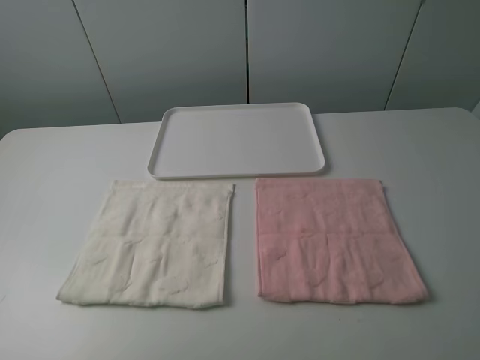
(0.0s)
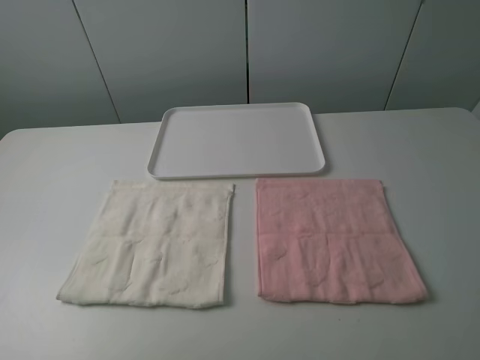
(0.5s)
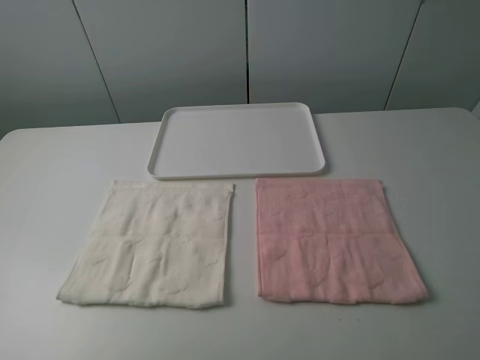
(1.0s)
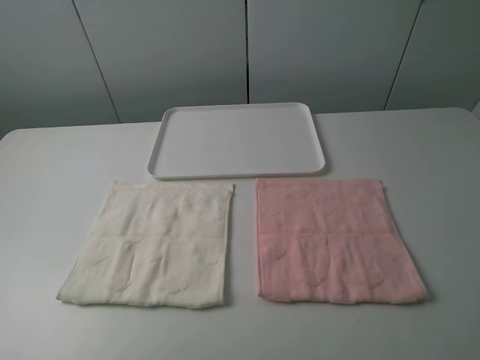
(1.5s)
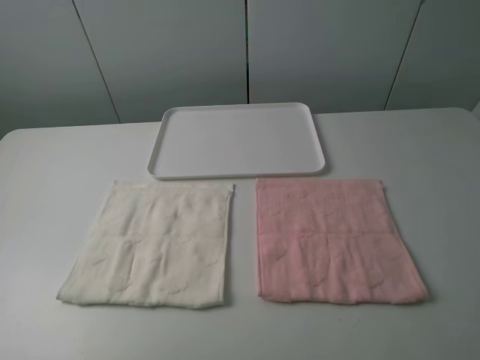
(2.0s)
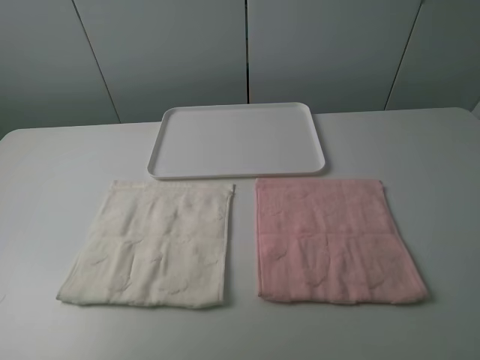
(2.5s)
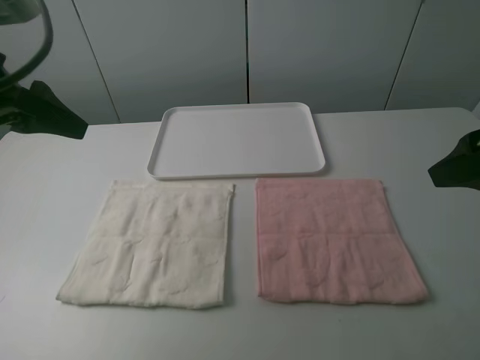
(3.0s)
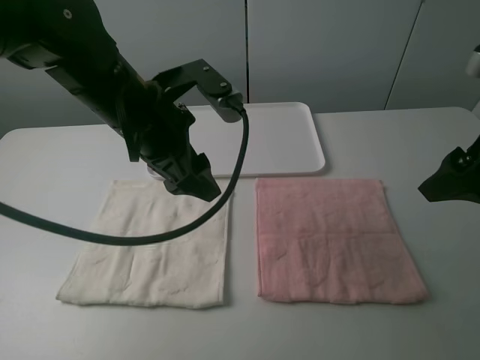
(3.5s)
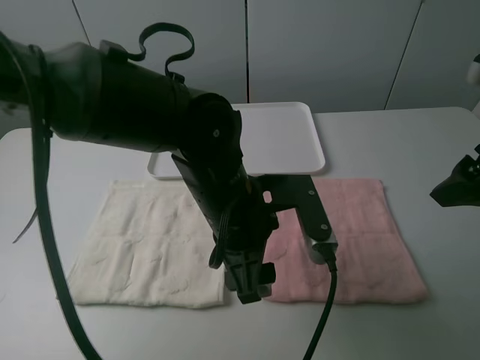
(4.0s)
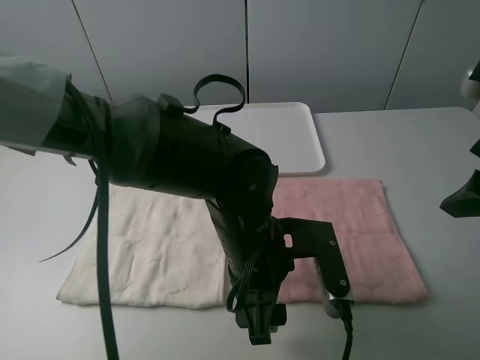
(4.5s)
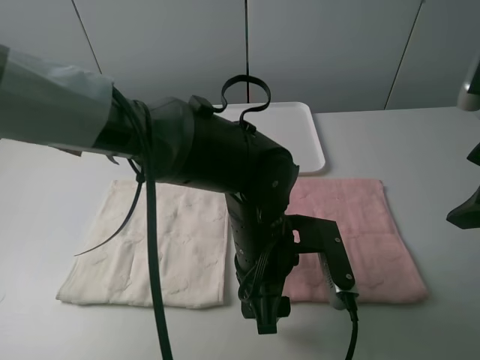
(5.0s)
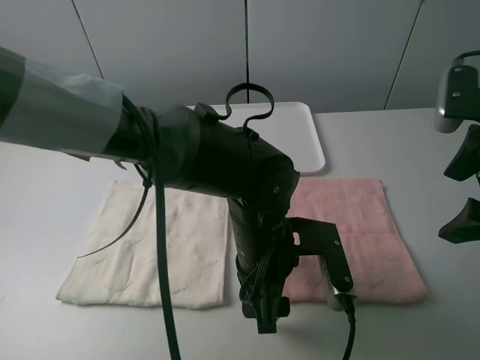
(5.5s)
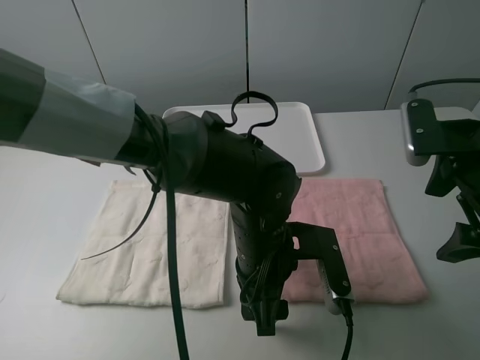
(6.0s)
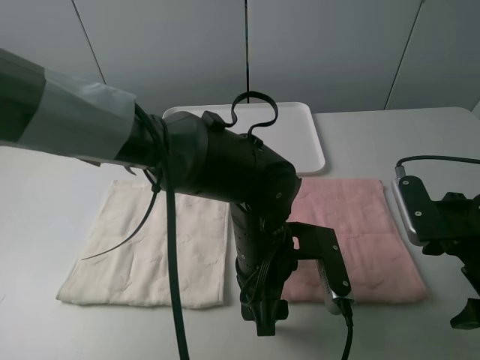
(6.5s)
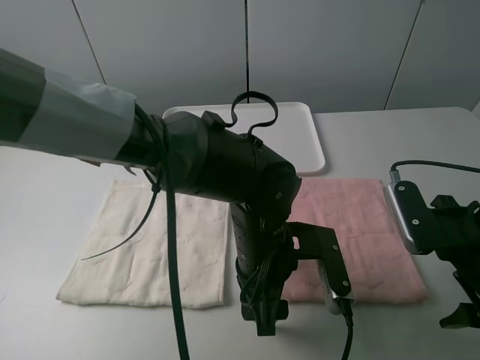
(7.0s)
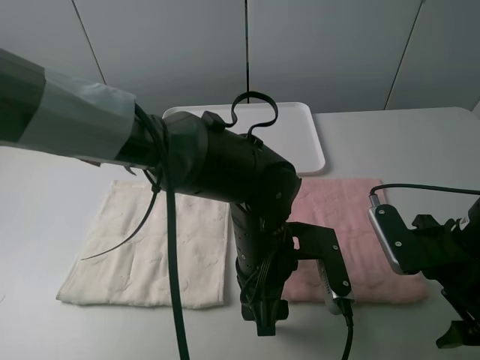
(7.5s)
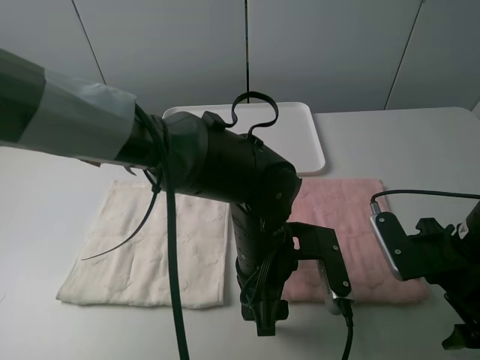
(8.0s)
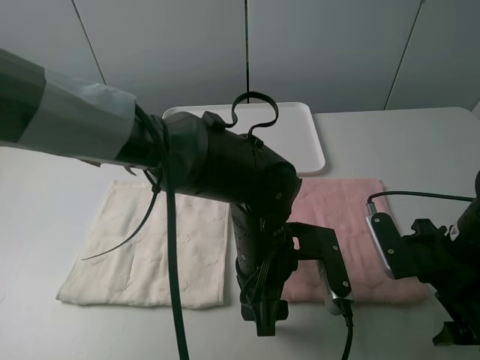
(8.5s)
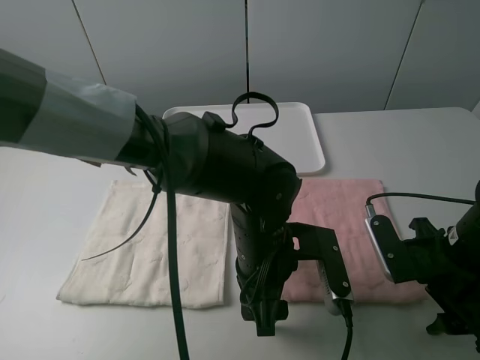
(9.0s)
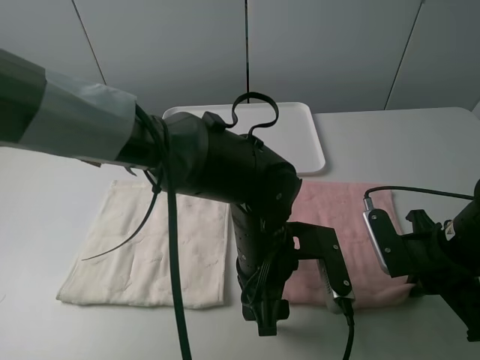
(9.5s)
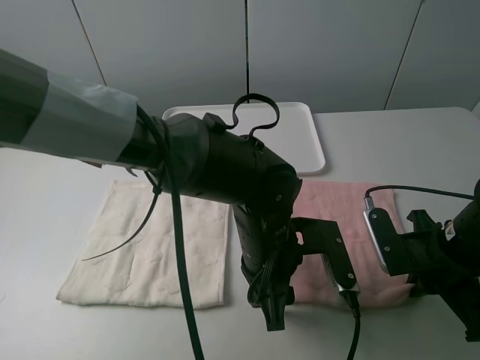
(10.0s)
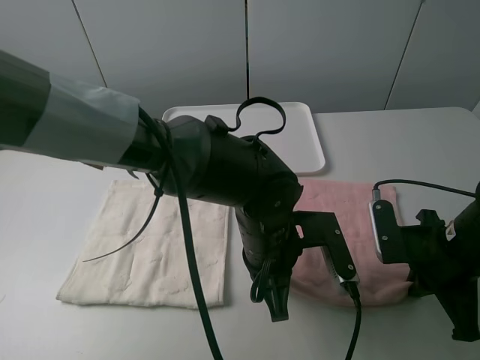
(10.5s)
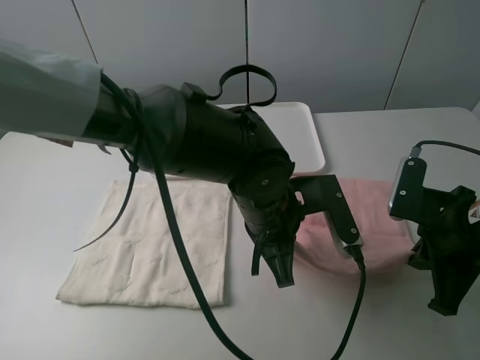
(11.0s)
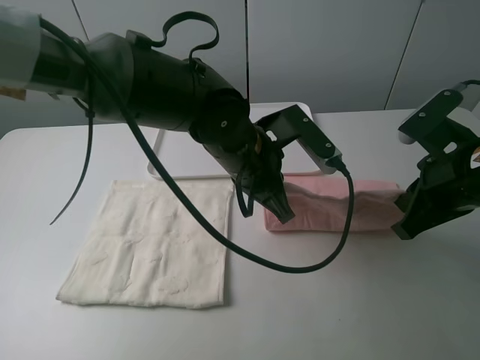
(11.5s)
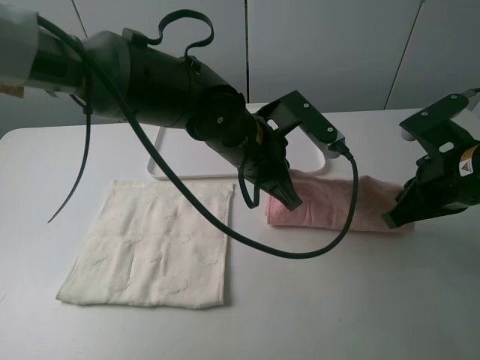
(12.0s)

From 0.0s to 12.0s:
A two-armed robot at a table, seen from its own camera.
Task of the whole recording: fold one of the towels by two grippers and place it on the tray,then fold another towel by two grippers and place it on the folded towel.
Step, from 0.0s to 10.5s: Grasp the pink towel with the left gripper.
From 0.0s to 2.0s: Both grippers stay put.
From 2.0s to 4.0s: The right gripper travels forward by some 20 cm. The left gripper shifts some 40 cm to the right, forward and downward.
From 4.0s to 6.0s: The left gripper moves roughly 5 cm. Meanwhile the right gripper is displaced downward by approximately 5 cm.
From 6.0s to 8.0s: The right gripper is displaced downward by roughly 10 cm.
From 8.0s to 10.0s: The right gripper closes its fingers, while the left gripper closes up.
From 10.0s to 12.0s: The left gripper heads forward and upward, covering about 10 cm, and closes up. Meanwhile the right gripper travels upward by some 5 cm.

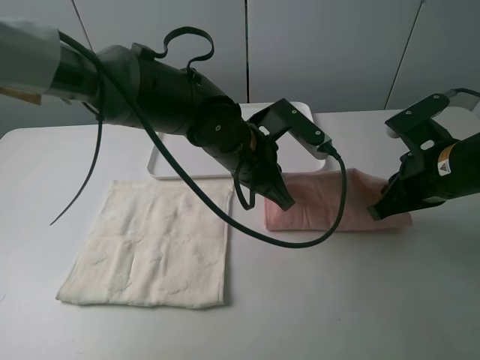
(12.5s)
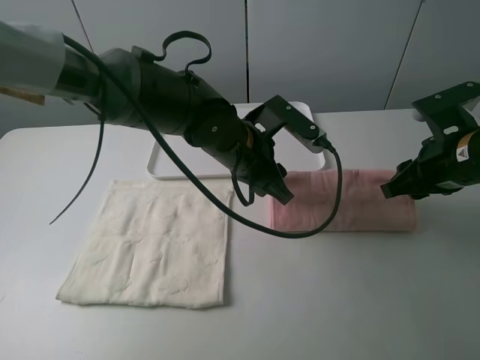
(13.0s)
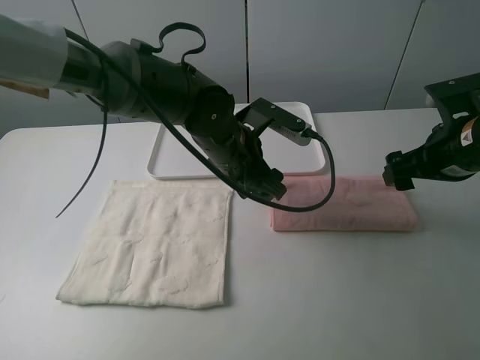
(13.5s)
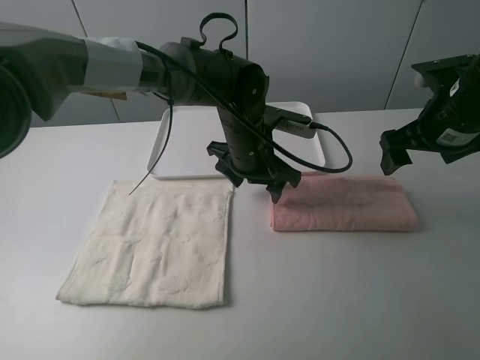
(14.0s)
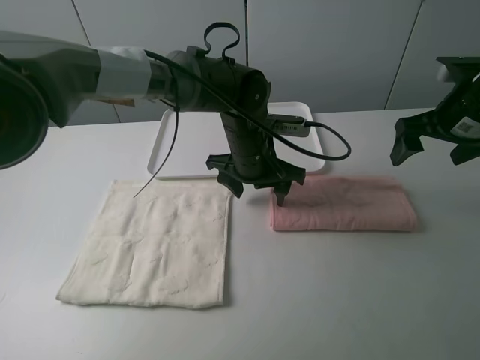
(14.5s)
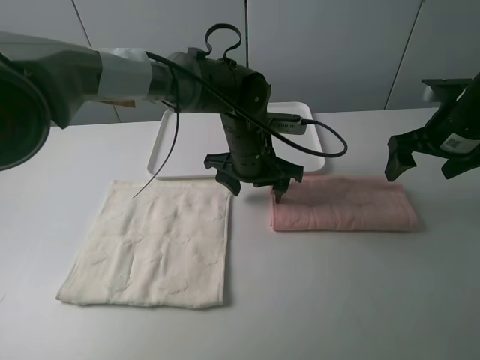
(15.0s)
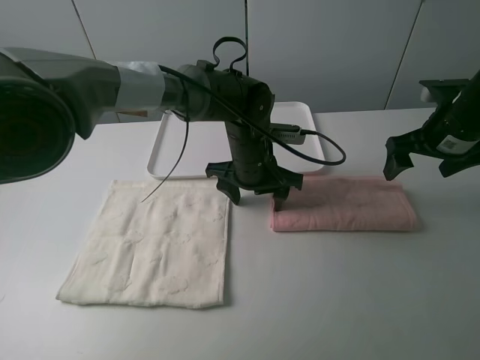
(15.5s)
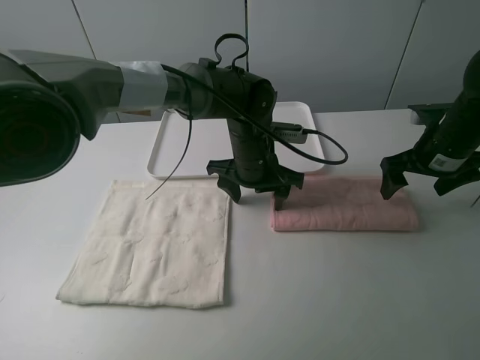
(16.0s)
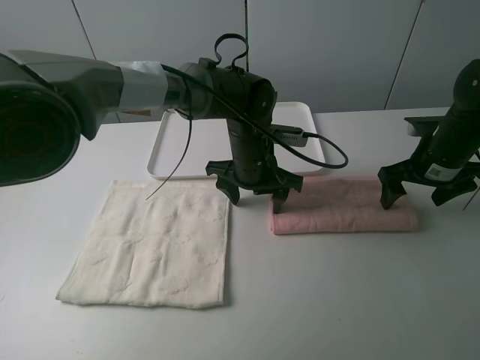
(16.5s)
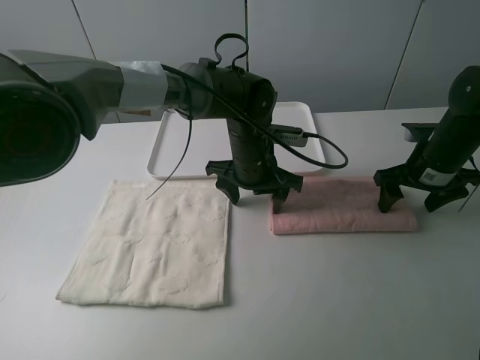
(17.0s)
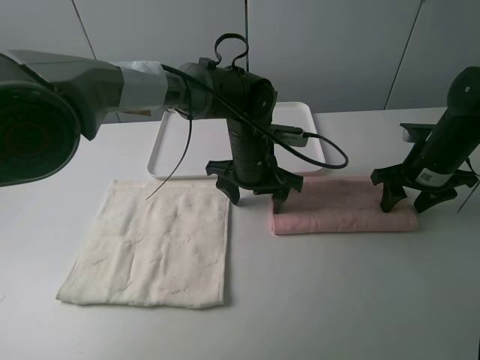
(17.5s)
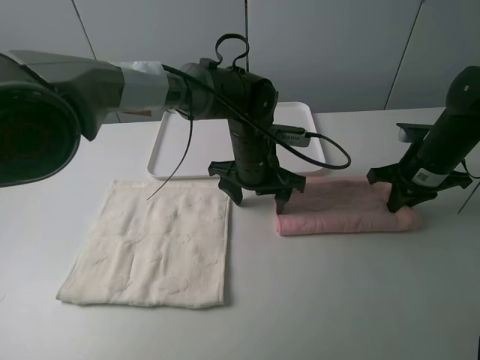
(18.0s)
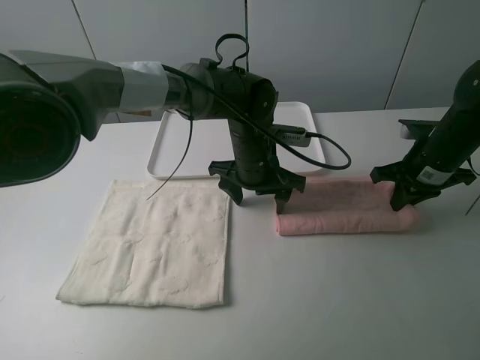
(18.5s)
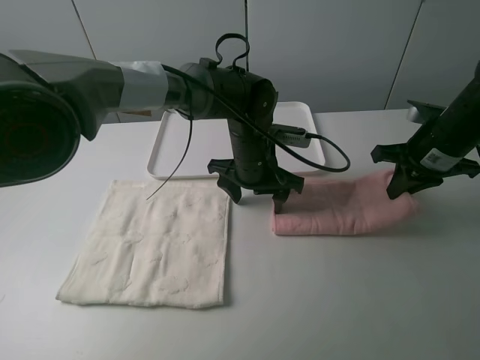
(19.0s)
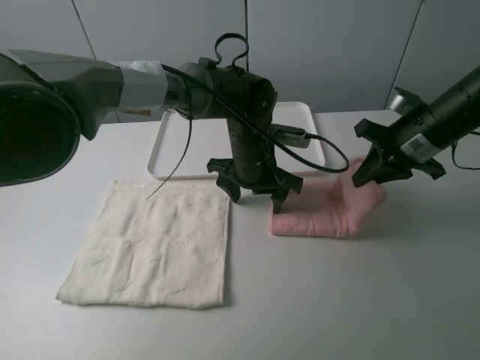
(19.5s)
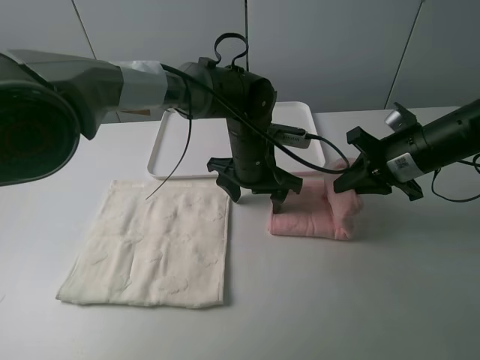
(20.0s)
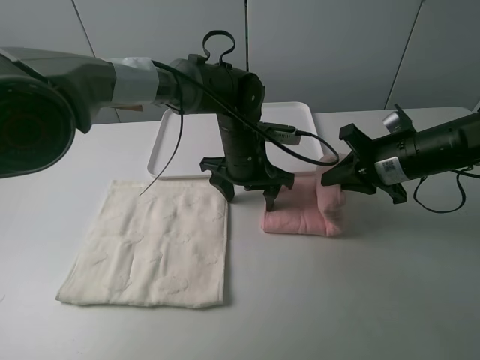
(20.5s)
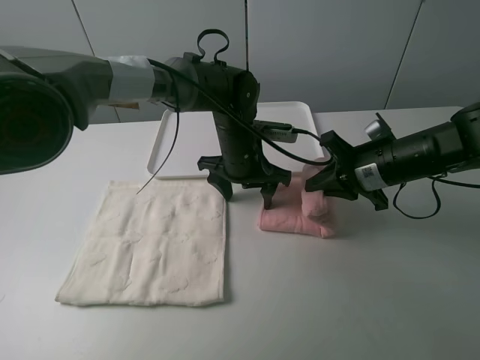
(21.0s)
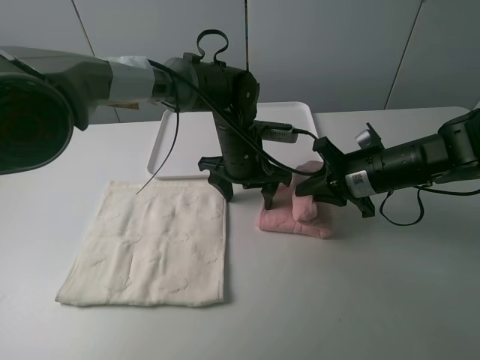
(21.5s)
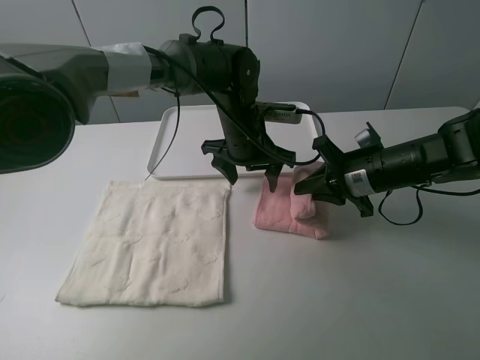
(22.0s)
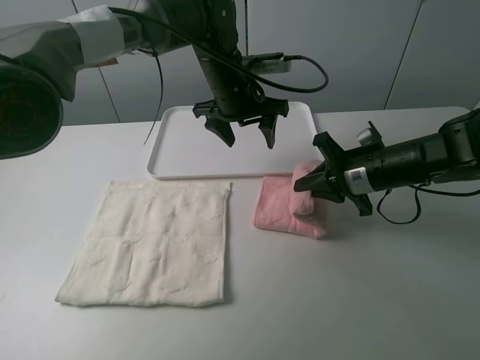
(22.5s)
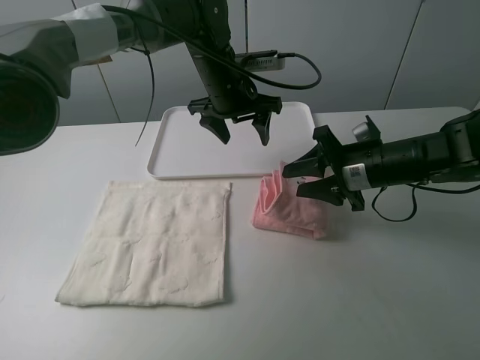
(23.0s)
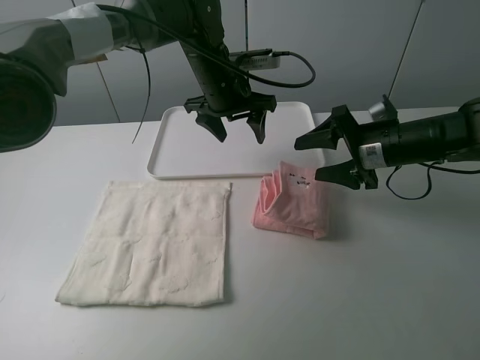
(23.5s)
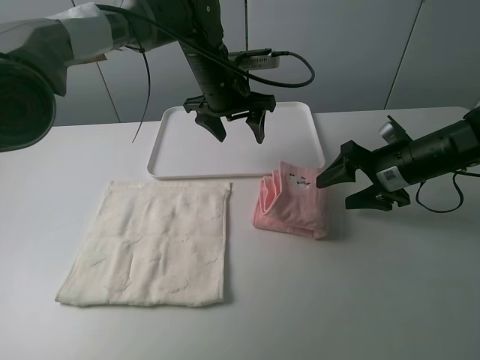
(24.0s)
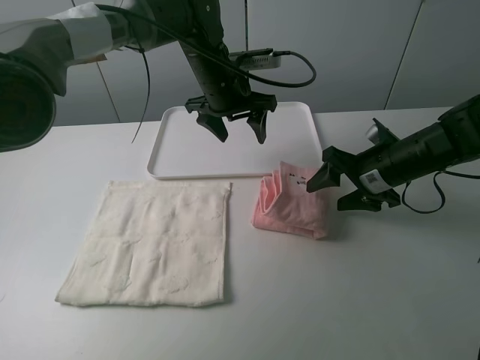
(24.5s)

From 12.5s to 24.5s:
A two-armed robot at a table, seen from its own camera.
Task of the whole recording: fold one of the towels by two grippers and place it on the tray,then fold another towel by two grippers and place it on the folded towel.
Step, from 13.5s to 15.5s: Press the pink towel with the left gripper.
Step, from 16.0s to 18.0s: Grasp the pink towel with the right gripper.
Step, from 18.5s to 23.0s: Fold the pink towel from right to left with right gripper.
From 12.5s to 14.5s: The right gripper is displaced forward and to the right by approximately 10 cm, and opens its fingers. The left gripper moves approximately 5 cm, and opens.
From 14.5s to 16.5s: The right gripper travels downward by roughly 10 cm.
From 16.5s to 18.5s: The right gripper closes up.
From 18.5s to 20.5s: The right gripper is displaced to the left by approximately 5 cm.
From 20.5s to 22.5s: The left gripper goes about 10 cm upward and forward.
From 22.5s to 24.5s: The right gripper opens up.

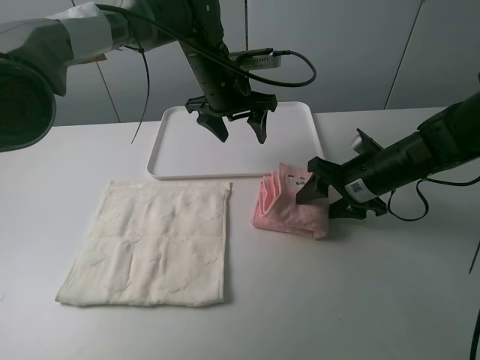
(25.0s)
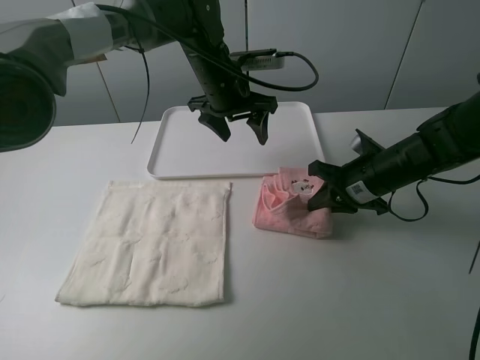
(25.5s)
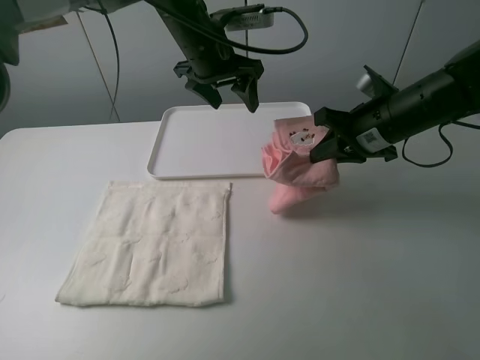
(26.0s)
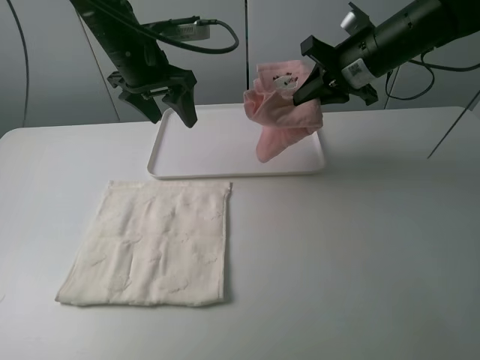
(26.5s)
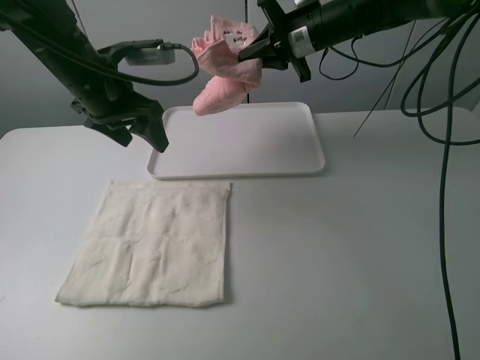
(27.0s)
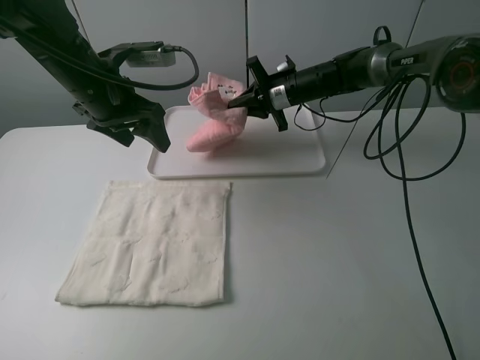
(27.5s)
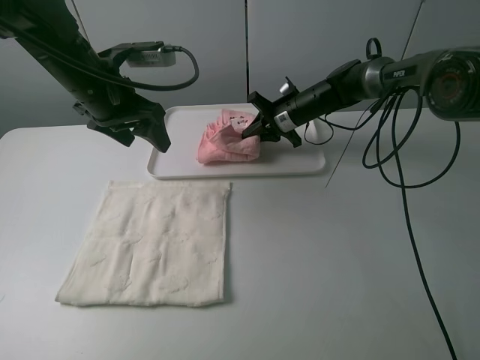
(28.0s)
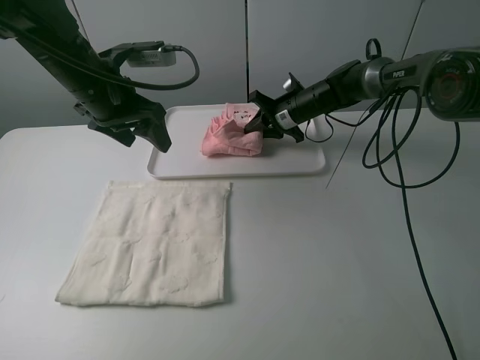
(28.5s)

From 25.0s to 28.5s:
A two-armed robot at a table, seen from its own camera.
Task of the whole recording: fold one of the towels by two grippers and place it on the tray,then fold another towel by two grippers and place it on the folded towel.
From 25.0s to 27.0s: The right gripper is displaced forward, upward and to the left by about 25 cm, and closes, while the left gripper shifts roughly 20 cm to the left and backward.
From 27.0s to 28.5s: The right gripper goes about 15 cm downward.
